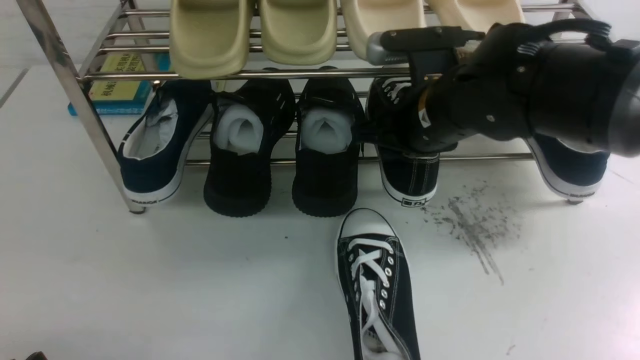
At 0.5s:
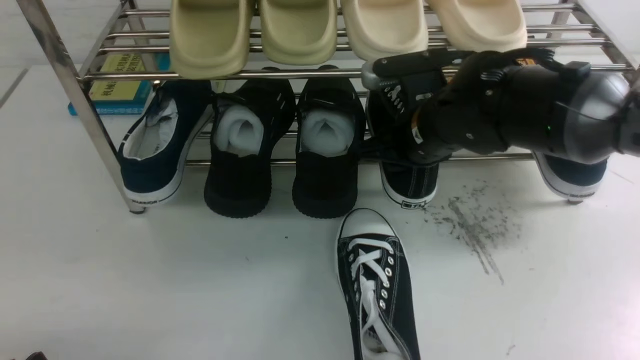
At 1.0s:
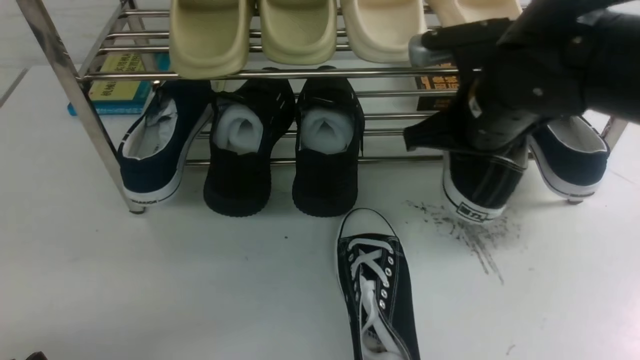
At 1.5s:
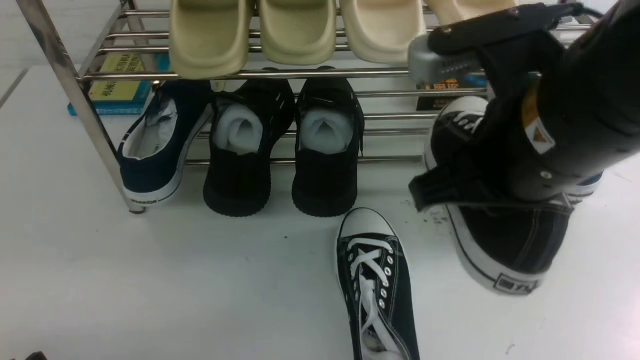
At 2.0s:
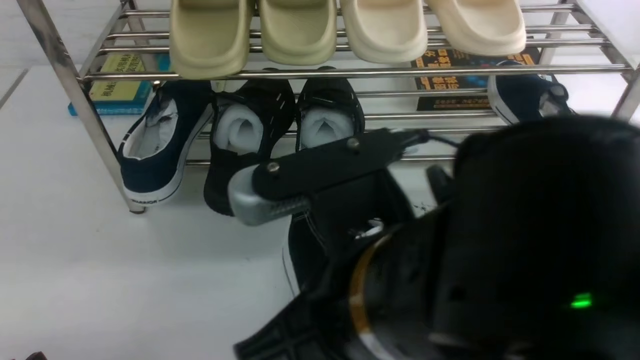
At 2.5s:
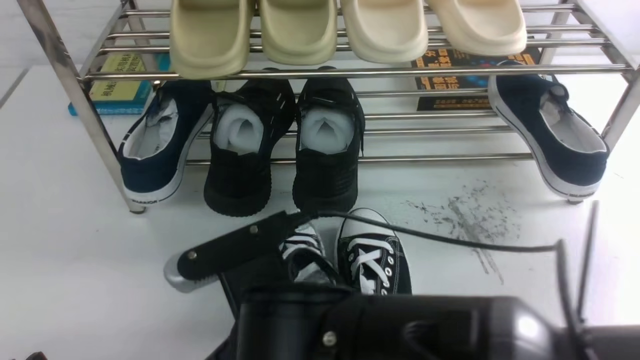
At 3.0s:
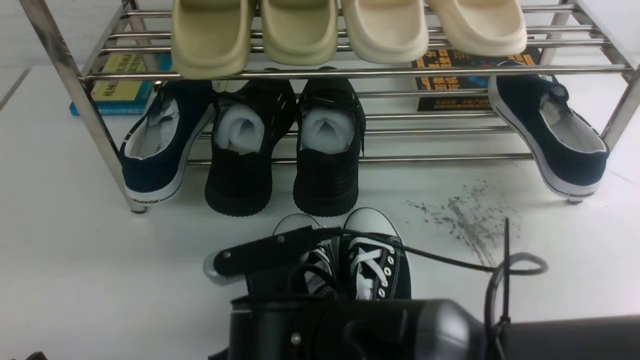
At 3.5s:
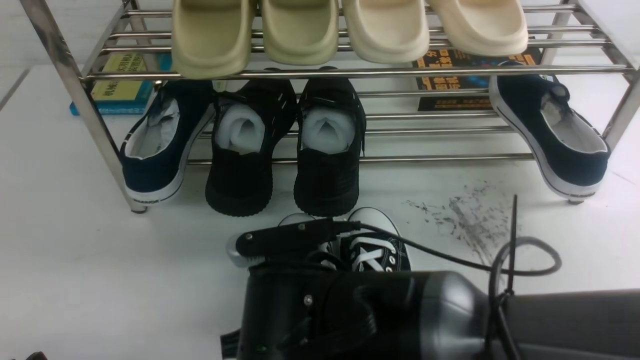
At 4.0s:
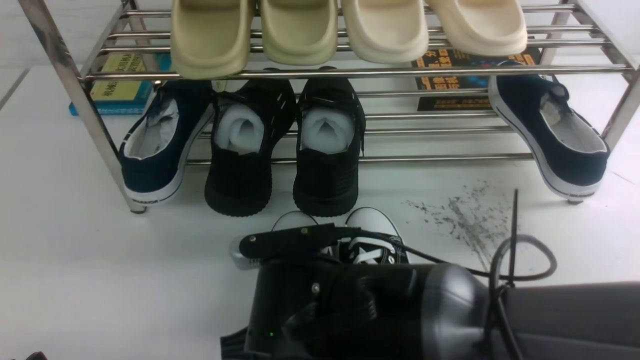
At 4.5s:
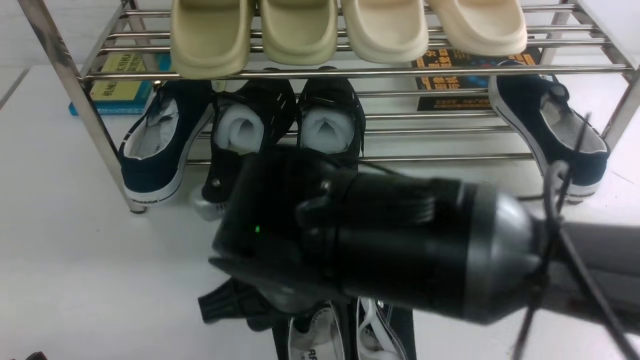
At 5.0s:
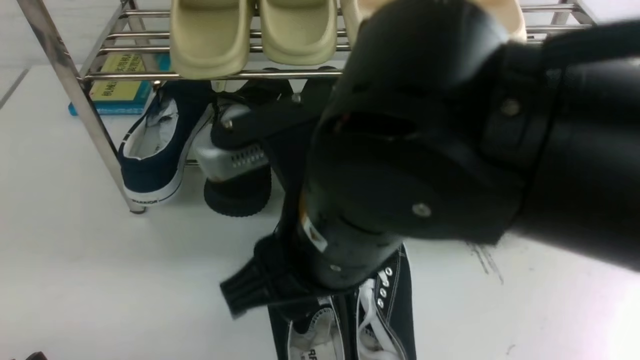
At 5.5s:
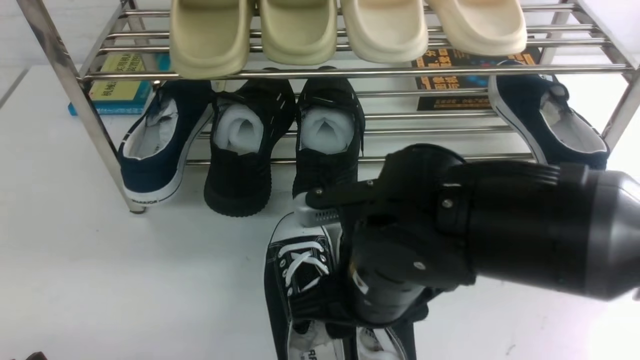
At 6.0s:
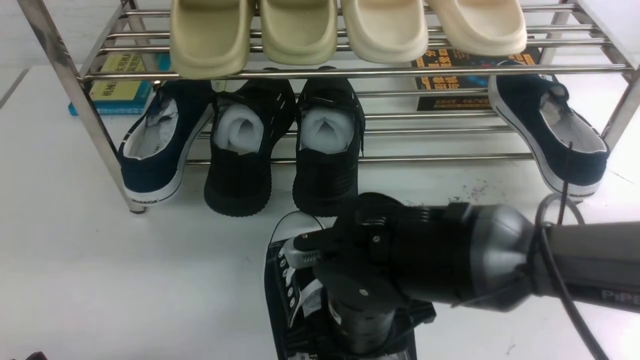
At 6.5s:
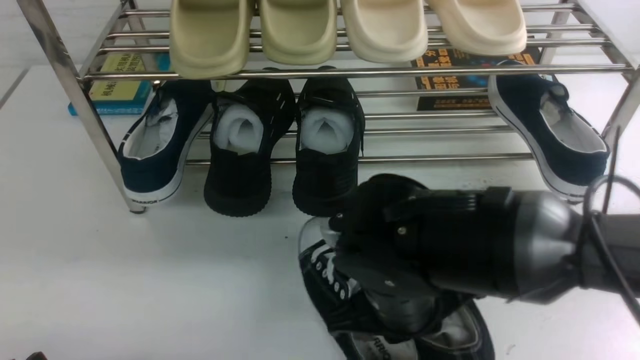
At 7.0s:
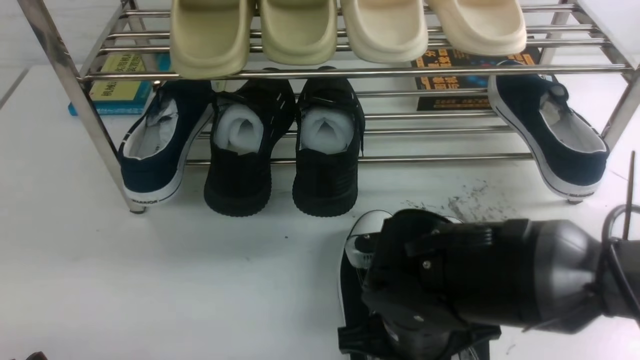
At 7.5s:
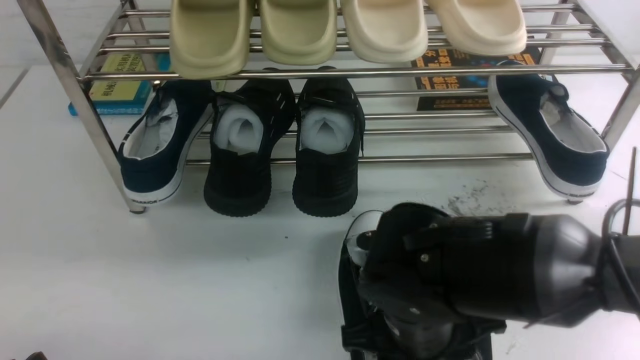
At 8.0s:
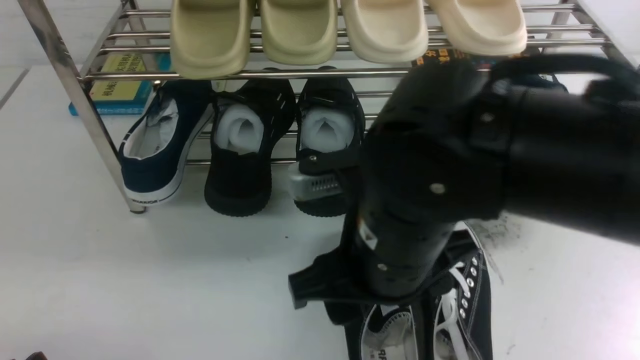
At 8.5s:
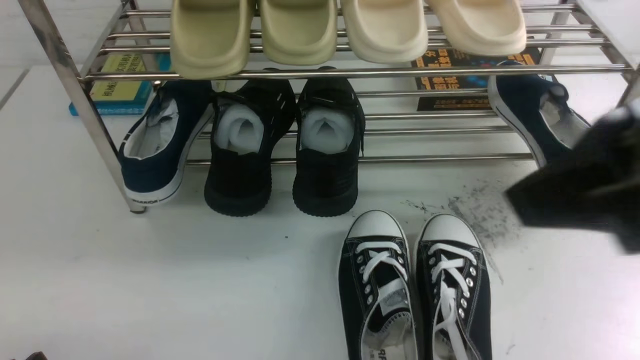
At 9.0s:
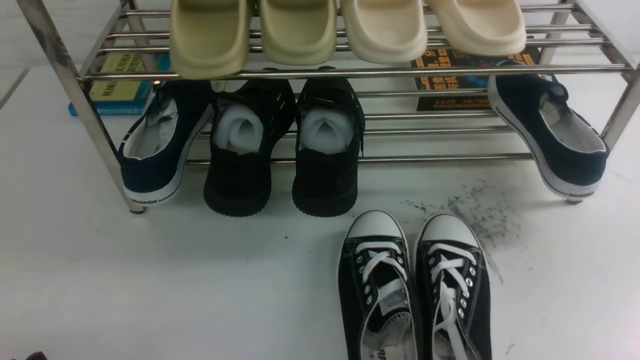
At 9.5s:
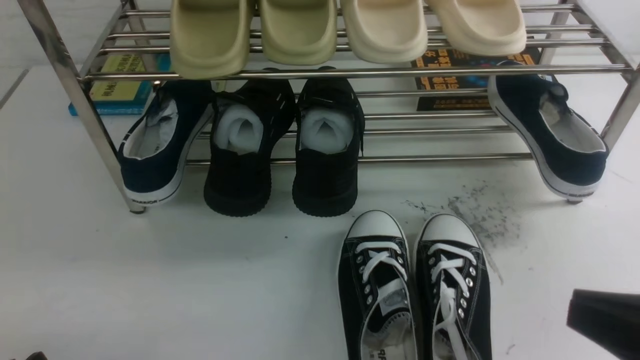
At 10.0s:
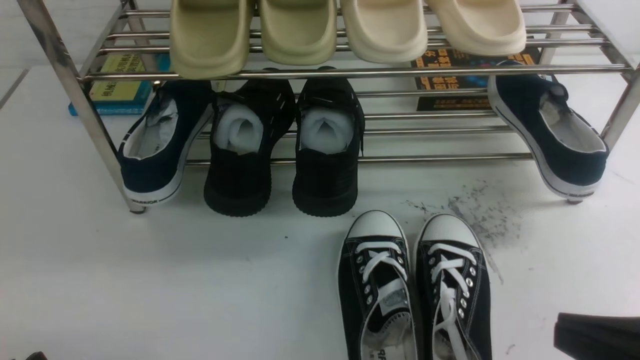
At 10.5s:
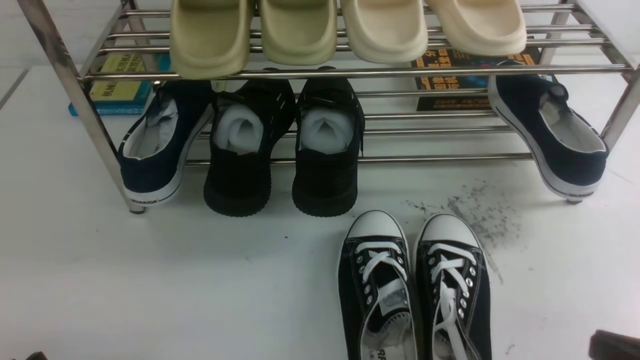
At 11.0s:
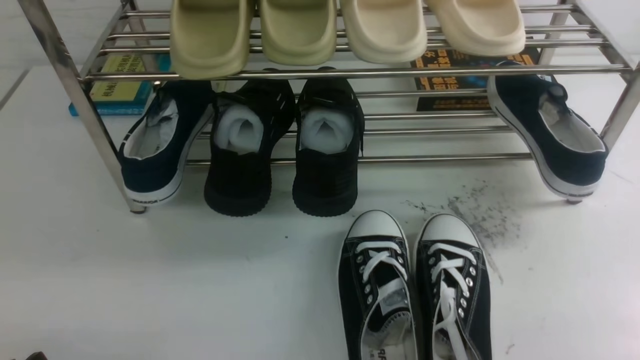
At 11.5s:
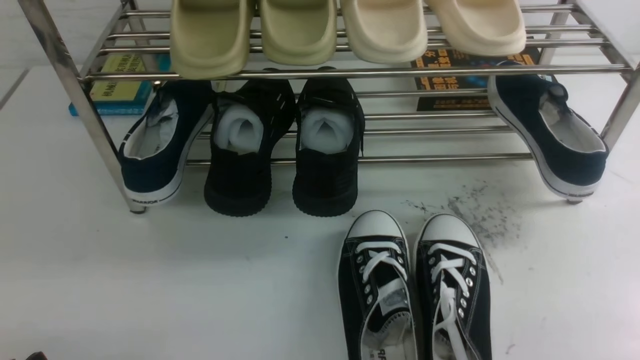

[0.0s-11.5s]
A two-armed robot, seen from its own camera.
Step, 0.0s to 1.0s: use the right arm to clamp a shoe in the middle of the shoe rack.
Step, 1.5s to 4.5s: use the right arm to take out the clamped shoe from the shoe rack and put it down.
0.0s to 2.0s: The right gripper goes some 20 cm backward, and closes up.
2.0s to 4.0s: The right gripper travels downward and forward by approximately 15 cm, and opens.
4.0s to 6.0s: The right gripper goes upward and returns, about 15 cm each way.
6.0s to 7.5s: The right gripper closes, then opens again.
7.5s to 9.5s: The right gripper moves to the right, backward and upward, roughly 25 cm, and closes.
9.5s to 11.5s: The right gripper goes about 15 cm downward and to the right.

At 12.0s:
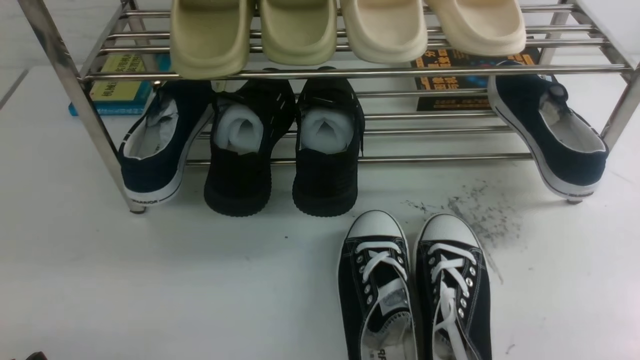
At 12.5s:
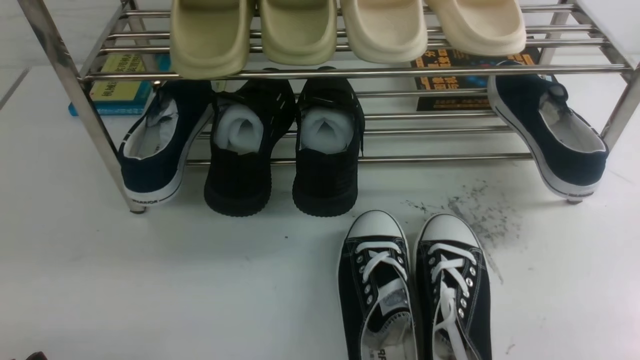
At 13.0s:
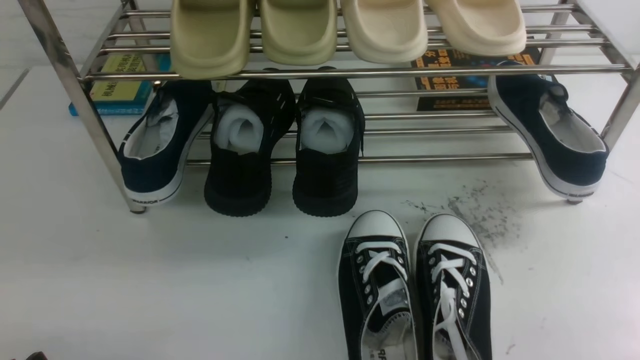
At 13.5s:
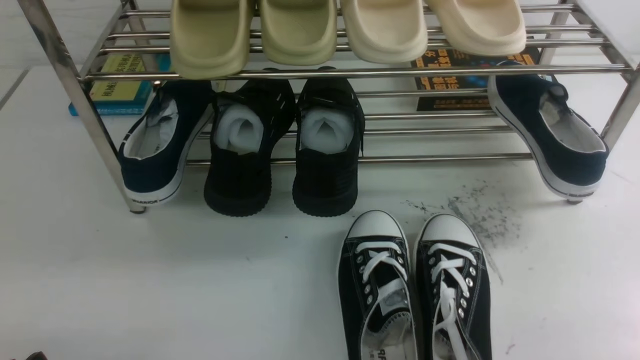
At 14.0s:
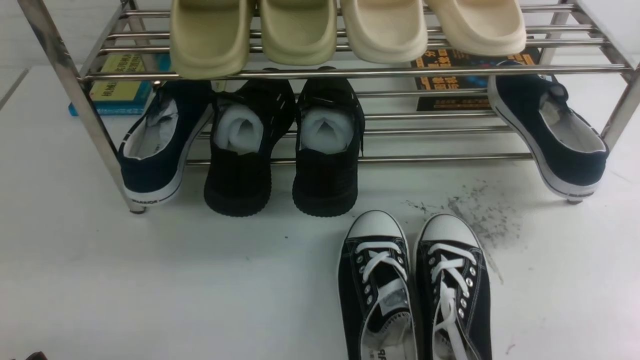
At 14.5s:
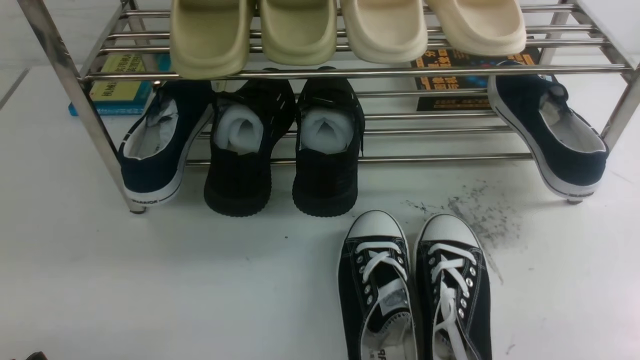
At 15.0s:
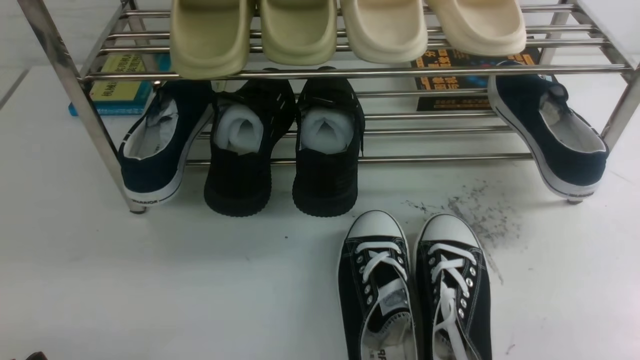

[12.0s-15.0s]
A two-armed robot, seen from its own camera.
12.0s to 15.0s: Both grippers stay put.
